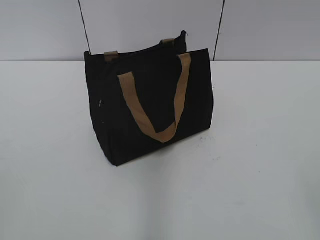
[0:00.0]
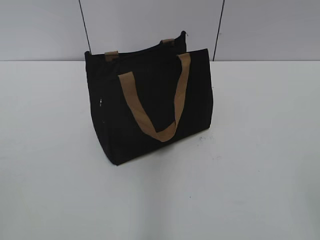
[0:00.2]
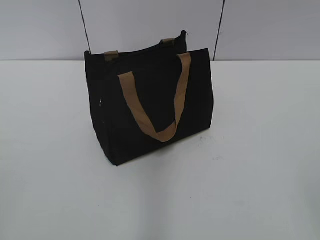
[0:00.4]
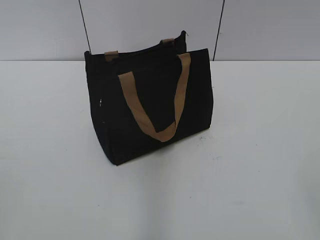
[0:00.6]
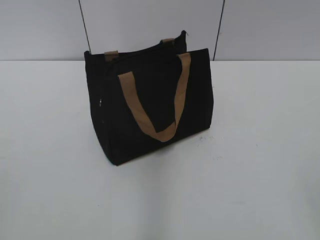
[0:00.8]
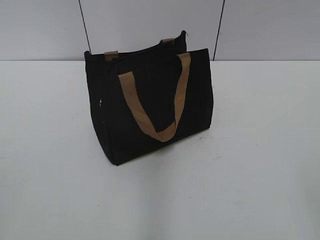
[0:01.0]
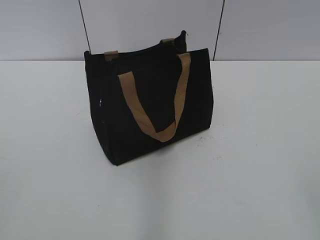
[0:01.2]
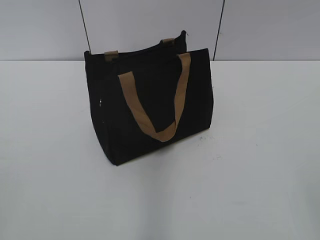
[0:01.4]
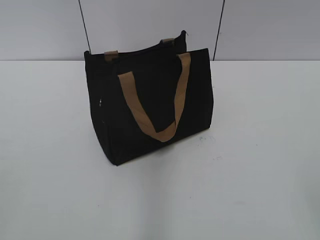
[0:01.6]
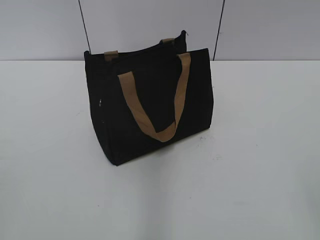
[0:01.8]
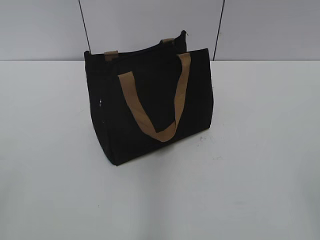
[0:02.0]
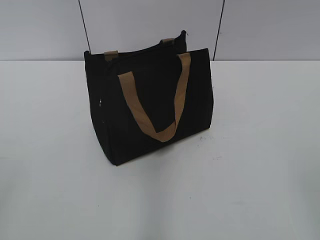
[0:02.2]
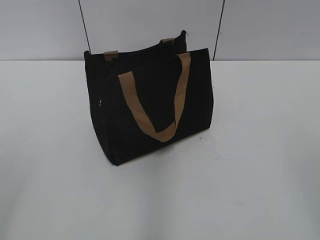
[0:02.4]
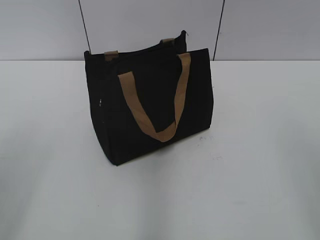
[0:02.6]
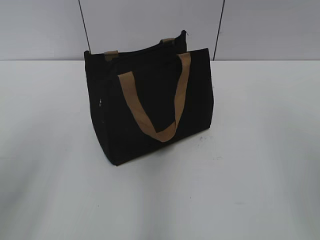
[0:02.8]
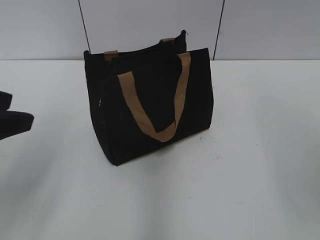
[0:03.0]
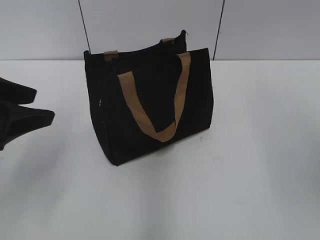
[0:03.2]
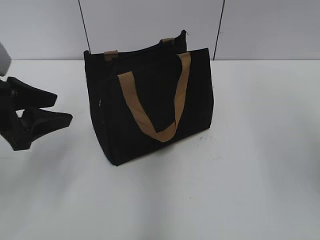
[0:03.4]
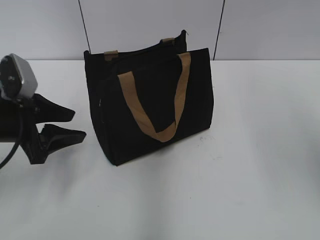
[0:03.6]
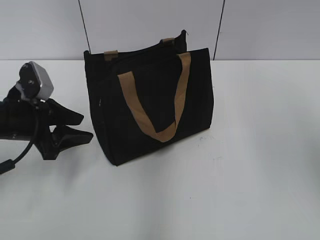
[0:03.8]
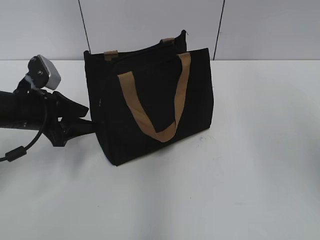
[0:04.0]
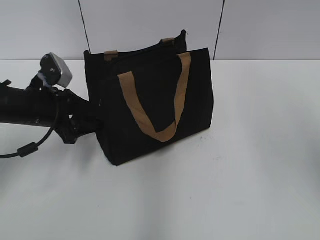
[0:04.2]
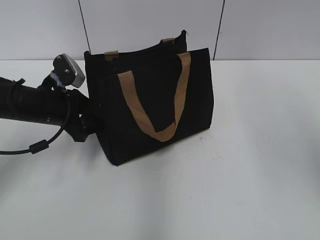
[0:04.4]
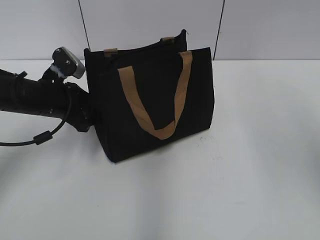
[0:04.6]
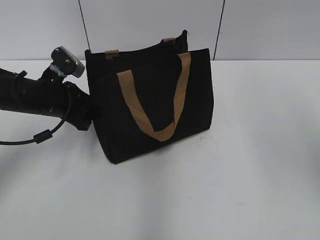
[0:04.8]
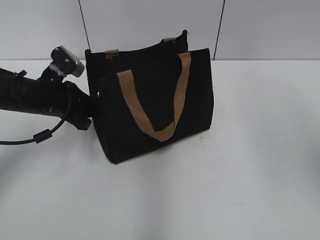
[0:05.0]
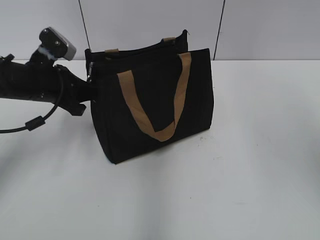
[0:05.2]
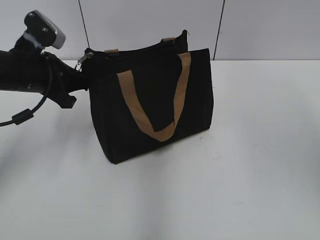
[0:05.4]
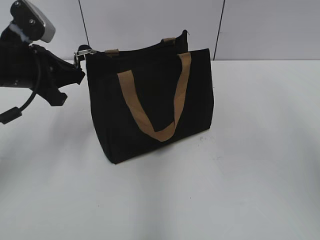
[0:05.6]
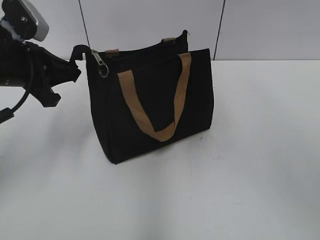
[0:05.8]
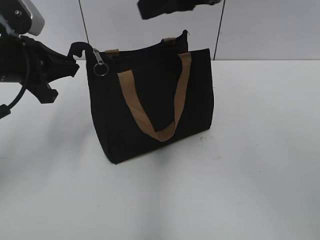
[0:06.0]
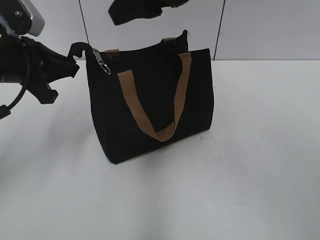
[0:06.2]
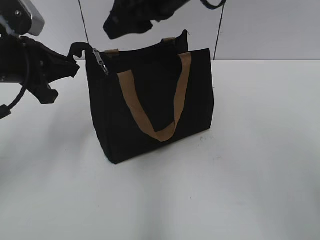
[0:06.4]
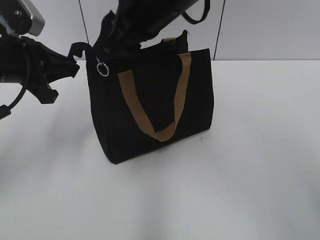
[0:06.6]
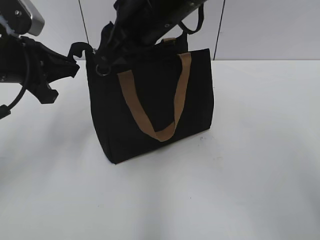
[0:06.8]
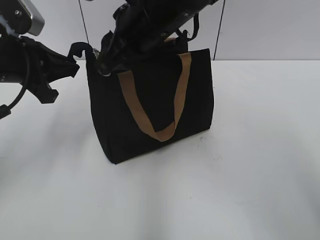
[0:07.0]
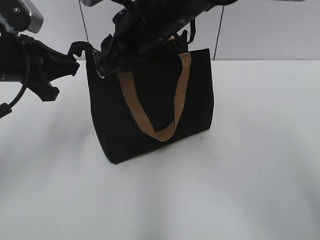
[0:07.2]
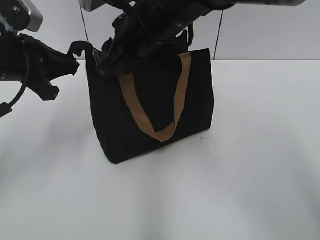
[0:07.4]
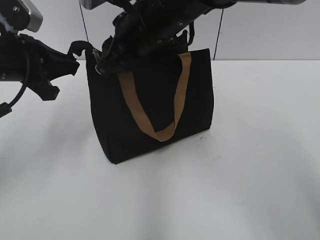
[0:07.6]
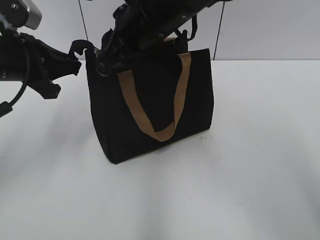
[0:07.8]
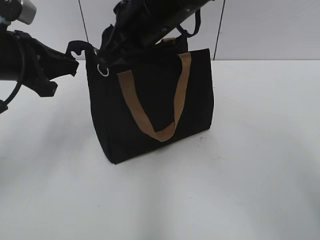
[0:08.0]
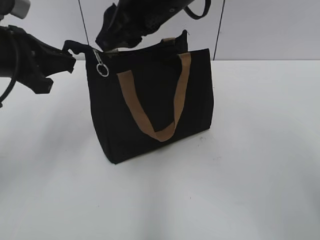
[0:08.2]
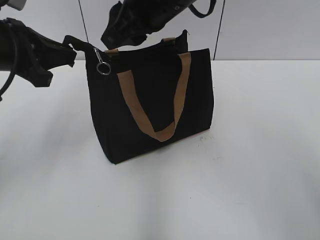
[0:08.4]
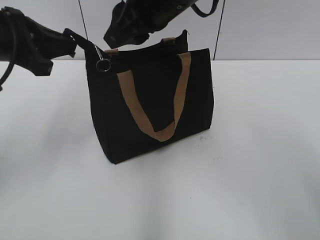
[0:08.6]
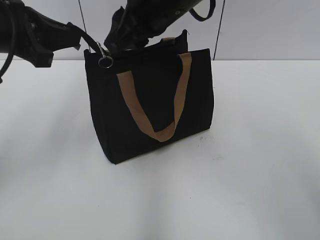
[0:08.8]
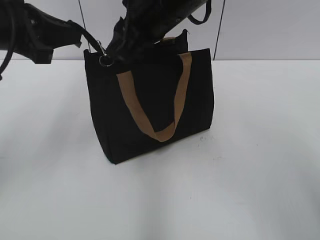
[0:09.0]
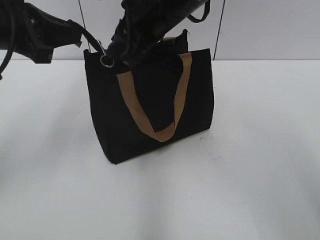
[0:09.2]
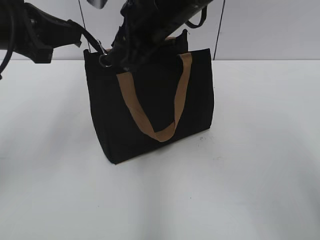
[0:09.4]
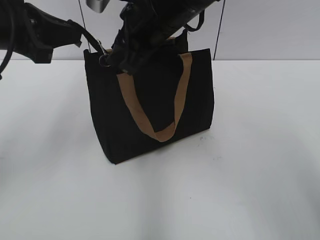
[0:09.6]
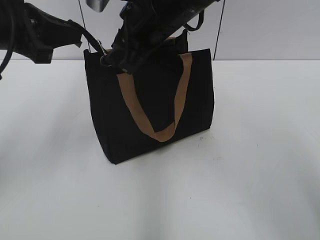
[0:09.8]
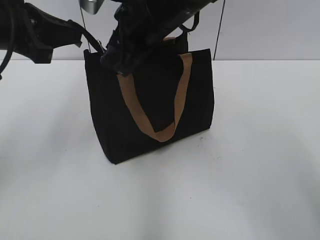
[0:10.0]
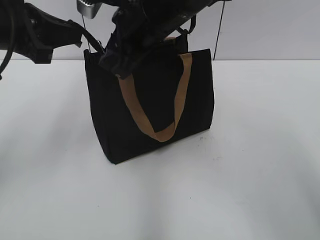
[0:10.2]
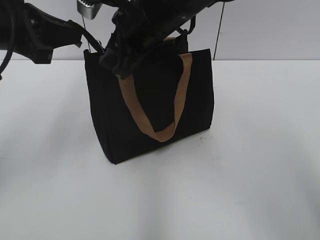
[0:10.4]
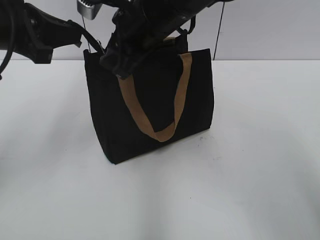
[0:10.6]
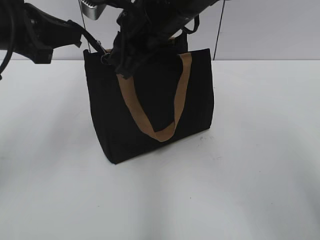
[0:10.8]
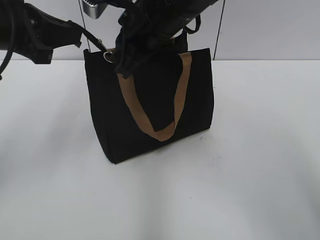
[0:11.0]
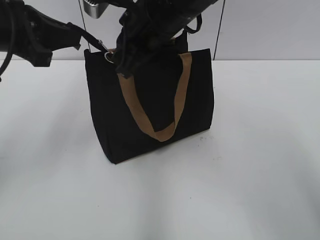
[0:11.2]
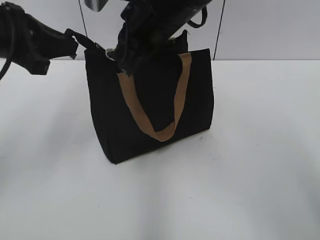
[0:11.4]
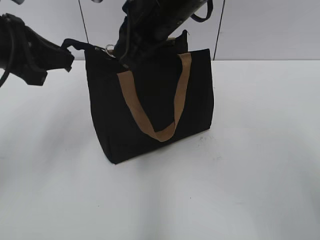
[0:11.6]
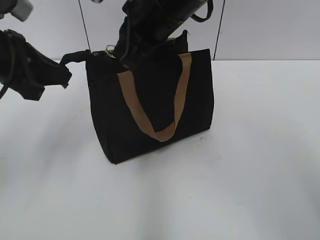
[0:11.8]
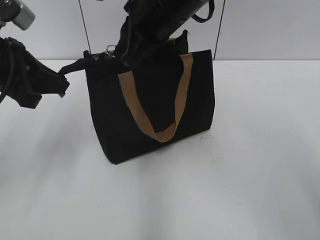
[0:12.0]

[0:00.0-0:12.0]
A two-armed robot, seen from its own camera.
0:01.6 to 0:03.0: The left gripper goes approximately 15 cm forward, and opens.
0:03.0 to 0:04.4: The left gripper goes about 20 cm forward and downward; the right gripper goes roughly 10 cm forward.
0:04.4 to 0:06.0: The left gripper shifts about 10 cm upward, and closes. The right gripper goes approximately 15 cm to the left.
0:06.0 to 0:07.6: The right gripper heads downward, to the left and forward, covering some 15 cm.
0:07.6 to 0:09.0: The left gripper moves upward, roughly 5 cm.
0:09.0 to 0:10.4: There are only small adjustments of the grippers.
0:10.4 to 0:12.0: The right gripper closes.

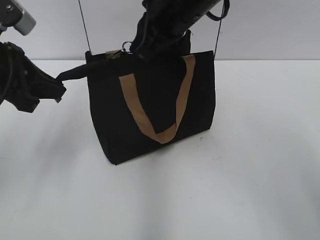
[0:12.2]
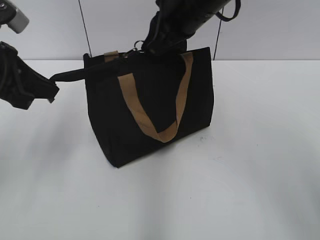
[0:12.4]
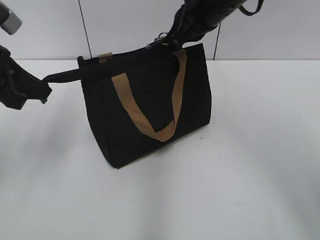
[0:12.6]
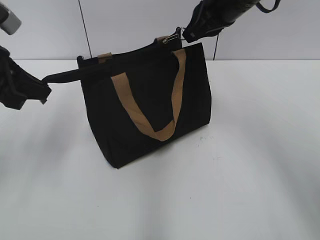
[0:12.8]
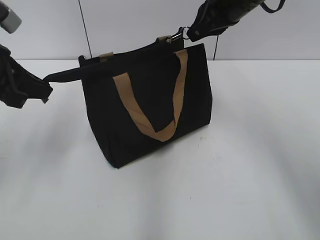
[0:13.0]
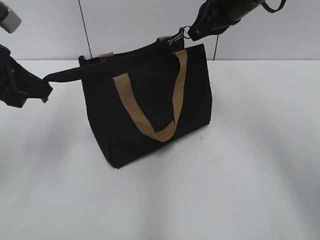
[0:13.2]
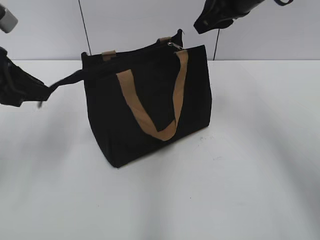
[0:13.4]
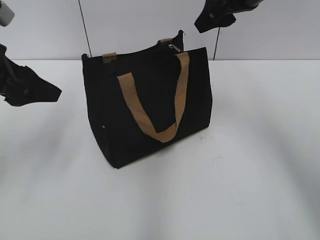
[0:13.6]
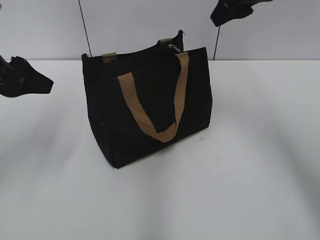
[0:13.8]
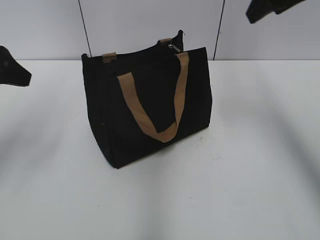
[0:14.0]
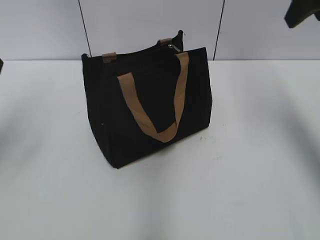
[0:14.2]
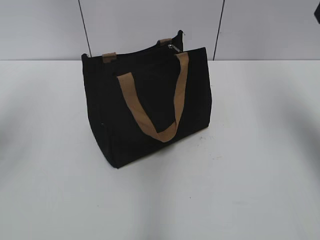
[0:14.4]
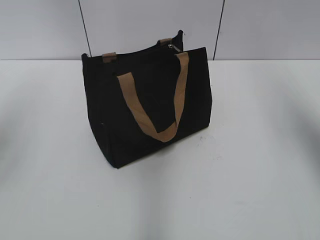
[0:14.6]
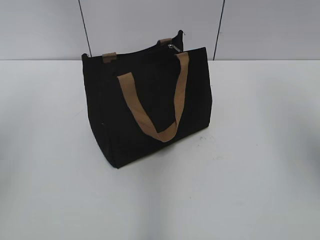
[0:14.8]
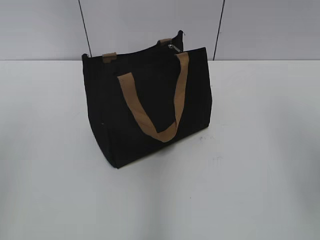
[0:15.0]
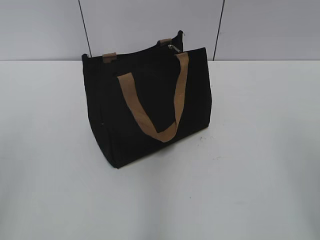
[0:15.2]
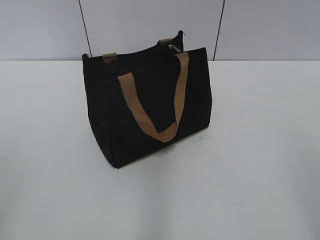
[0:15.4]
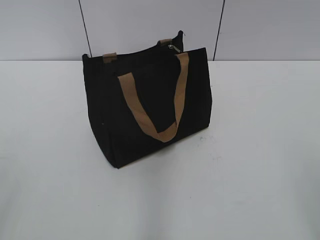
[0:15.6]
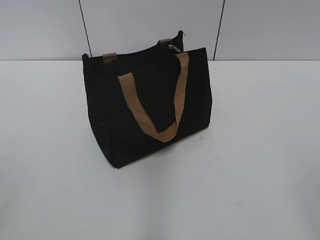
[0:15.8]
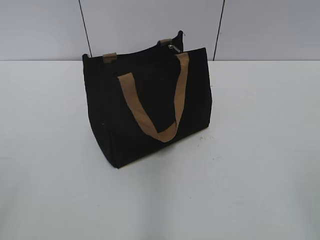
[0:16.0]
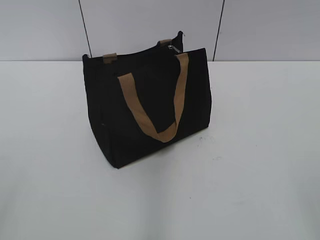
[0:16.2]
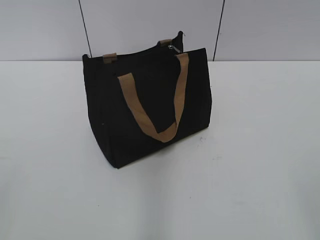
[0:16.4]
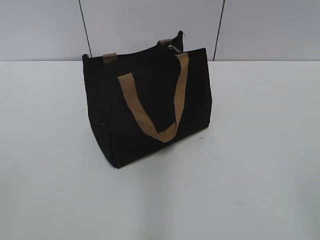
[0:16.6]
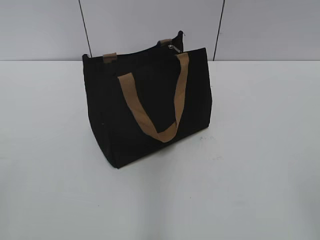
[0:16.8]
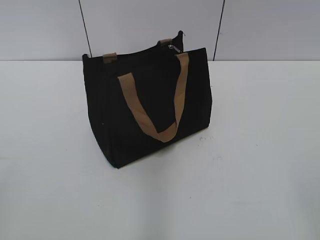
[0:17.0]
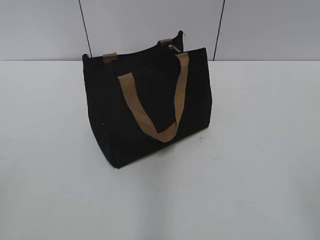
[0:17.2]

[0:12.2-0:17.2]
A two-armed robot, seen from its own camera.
0:12.2 to 0:13.8: The right gripper heads to the right, covering about 10 cm, and opens. Meanwhile the left gripper opens up.
0:13.8 to 0:15.6: The grippers both shift backward by approximately 30 cm.
